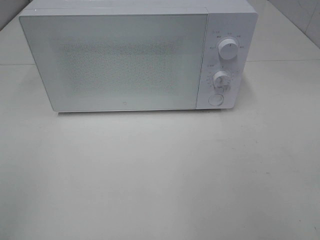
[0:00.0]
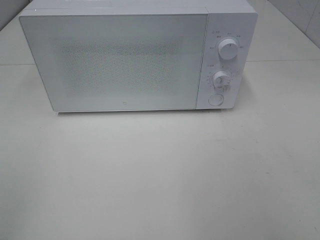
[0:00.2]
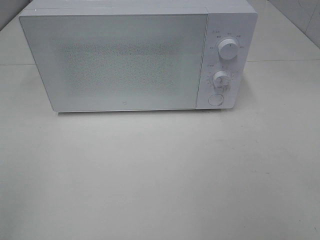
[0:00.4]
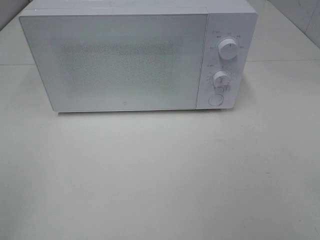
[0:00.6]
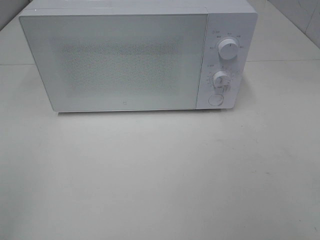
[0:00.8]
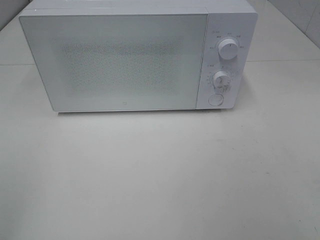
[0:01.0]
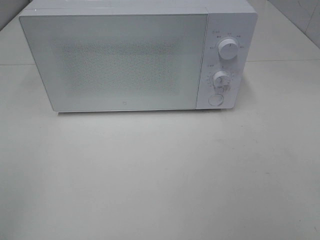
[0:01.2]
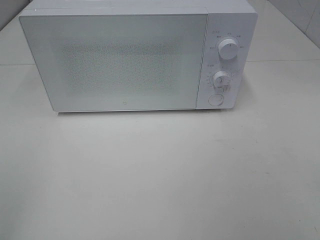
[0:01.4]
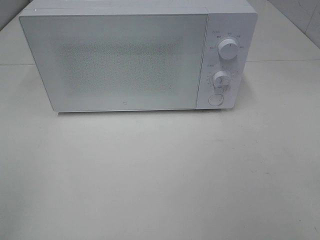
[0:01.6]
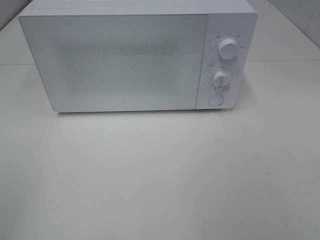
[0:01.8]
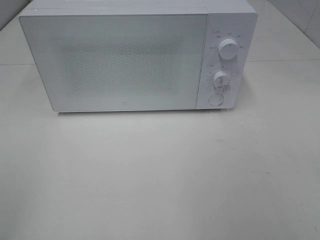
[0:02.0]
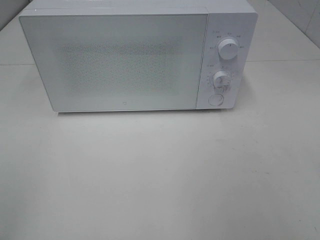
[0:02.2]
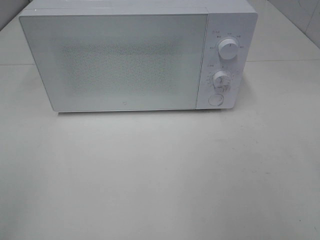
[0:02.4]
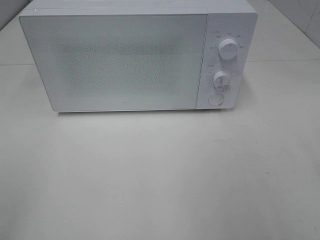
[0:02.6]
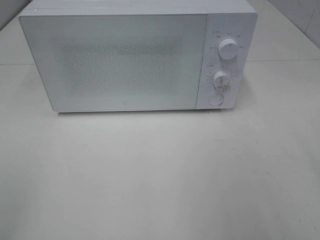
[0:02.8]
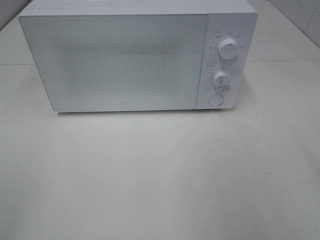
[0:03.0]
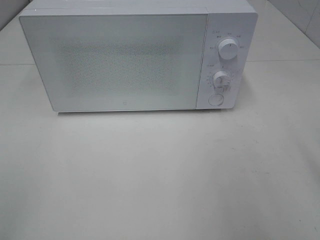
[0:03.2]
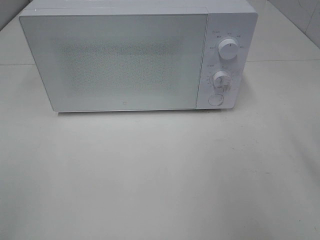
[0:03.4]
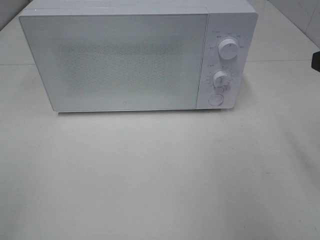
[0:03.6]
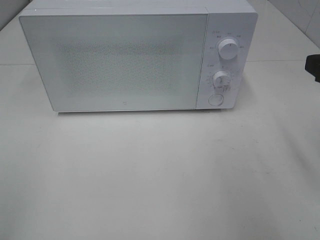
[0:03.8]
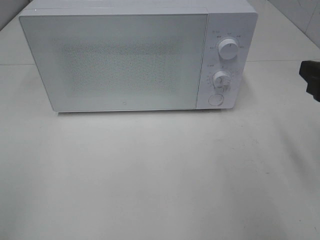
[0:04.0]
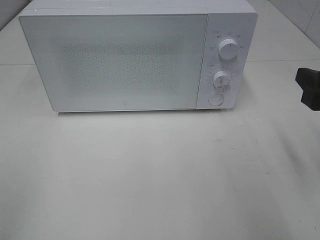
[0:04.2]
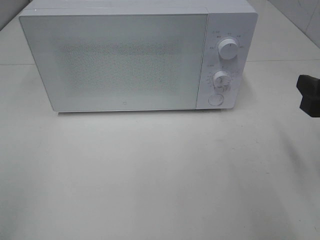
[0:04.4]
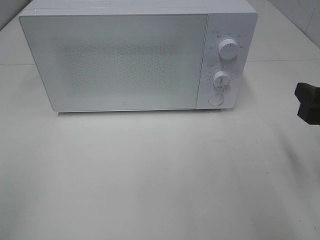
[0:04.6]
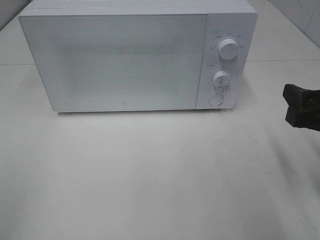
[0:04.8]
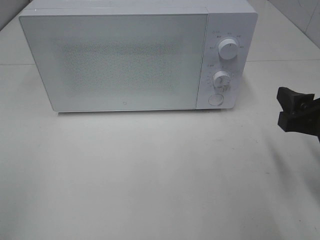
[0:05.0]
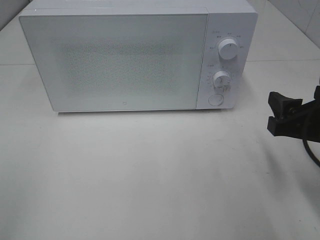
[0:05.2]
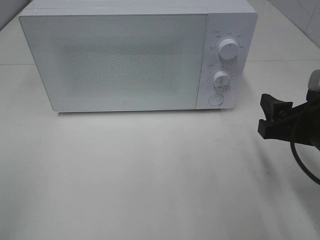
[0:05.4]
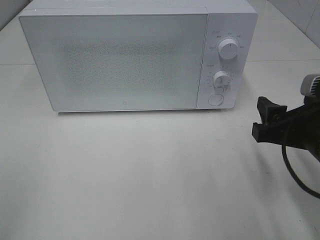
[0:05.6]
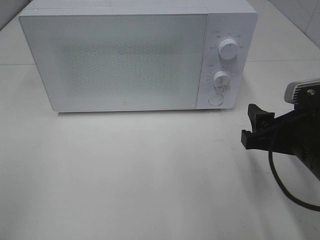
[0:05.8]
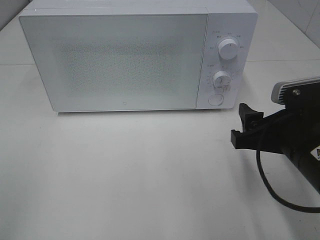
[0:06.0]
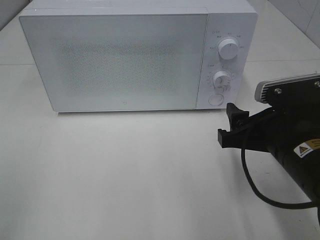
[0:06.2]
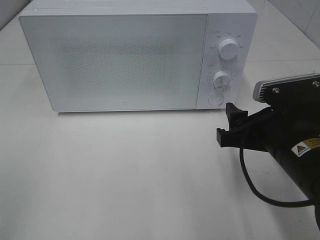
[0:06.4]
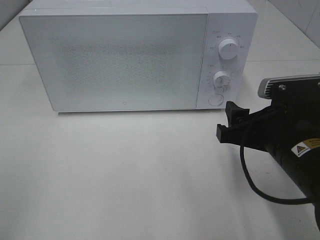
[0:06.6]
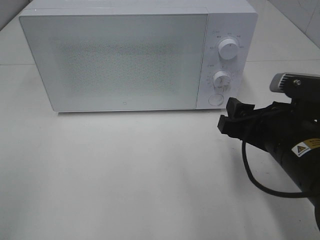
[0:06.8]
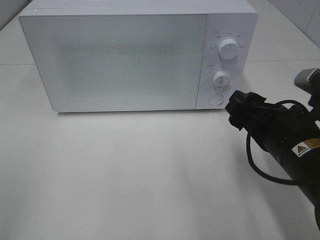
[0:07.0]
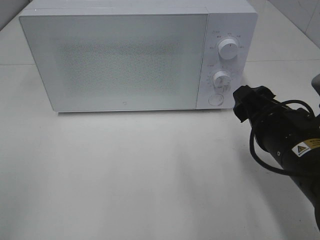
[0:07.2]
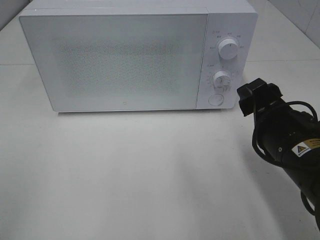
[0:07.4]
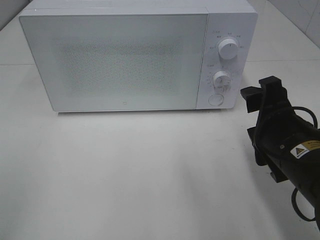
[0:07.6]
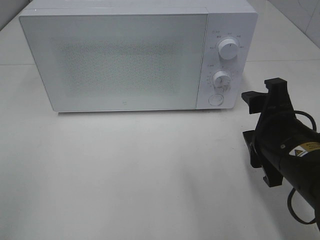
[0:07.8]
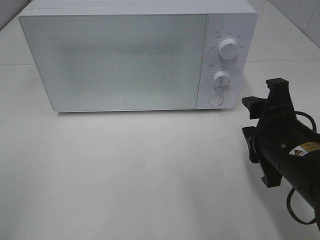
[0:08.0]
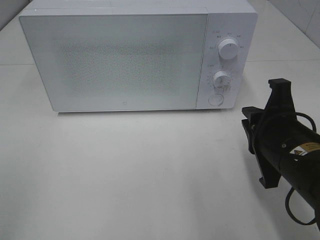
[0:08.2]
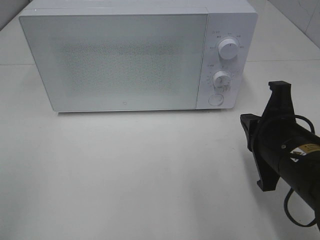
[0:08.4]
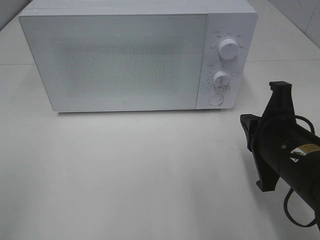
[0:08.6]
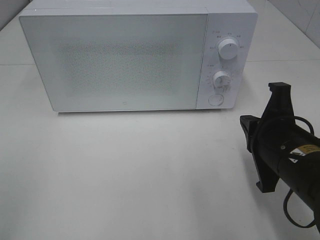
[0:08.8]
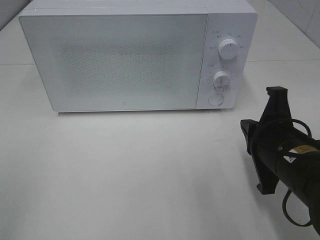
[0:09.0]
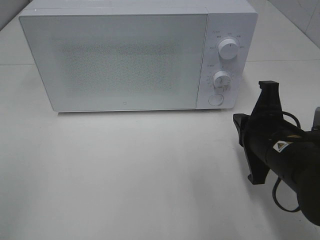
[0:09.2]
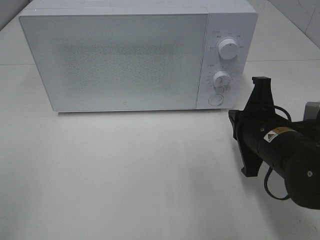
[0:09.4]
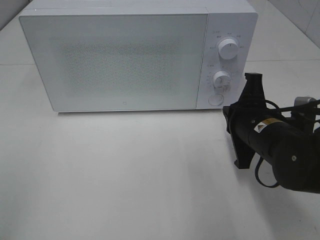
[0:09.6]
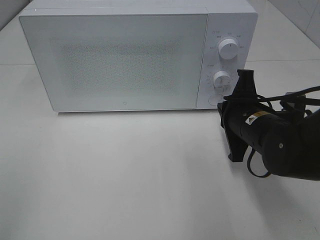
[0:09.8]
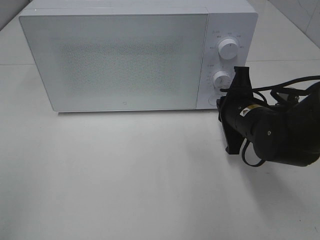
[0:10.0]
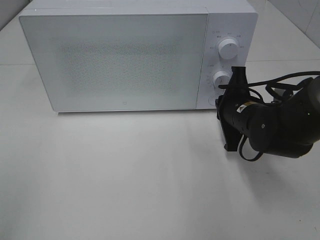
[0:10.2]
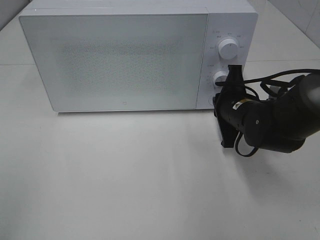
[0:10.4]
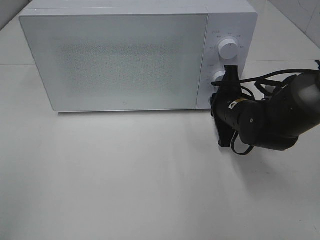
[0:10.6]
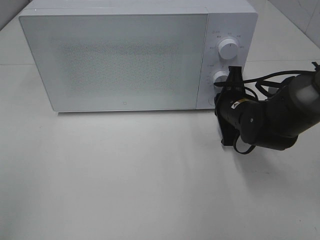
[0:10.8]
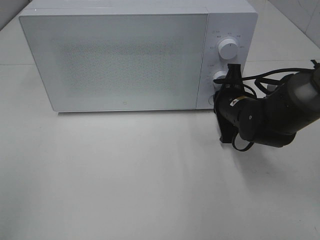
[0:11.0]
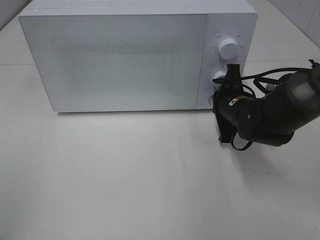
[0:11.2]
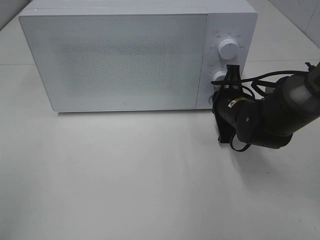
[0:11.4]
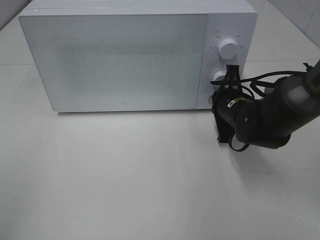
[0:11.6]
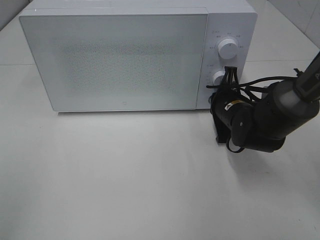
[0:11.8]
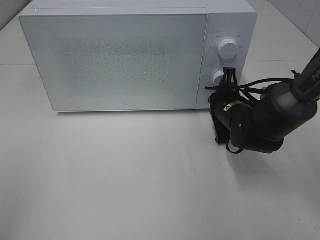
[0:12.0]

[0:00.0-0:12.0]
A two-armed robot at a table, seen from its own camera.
Task of the whole recording: Heat Sandwich.
0:03.0 to 0:04.4: The right gripper goes roughly 10 cm downward and forward.
0:04.4 to 0:06.0: The right gripper goes about 10 cm to the left.
0:07.6 to 0:09.0: The right gripper closes up.
0:09.0 to 0:10.4: The right gripper goes some 15 cm forward.
0:10.4 to 0:12.0: There are only small adjustments of the grippers.

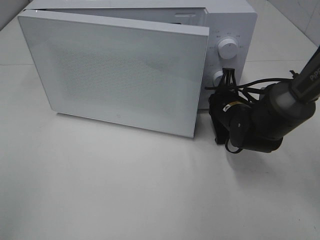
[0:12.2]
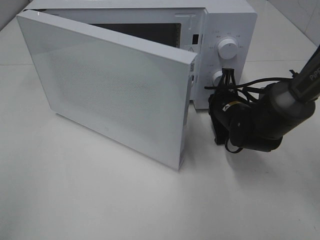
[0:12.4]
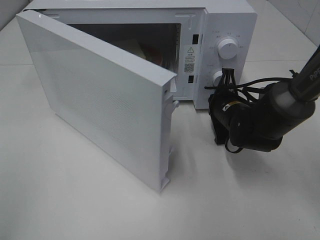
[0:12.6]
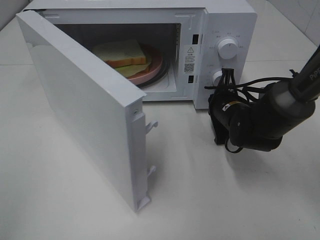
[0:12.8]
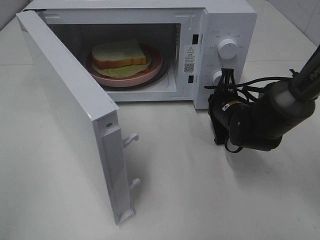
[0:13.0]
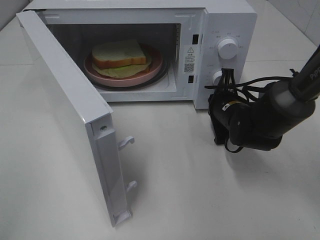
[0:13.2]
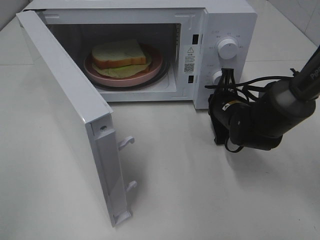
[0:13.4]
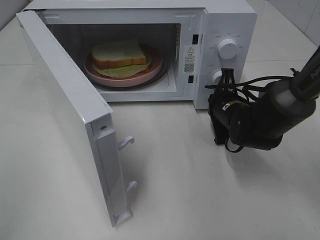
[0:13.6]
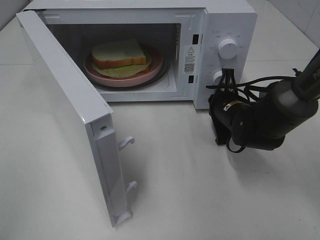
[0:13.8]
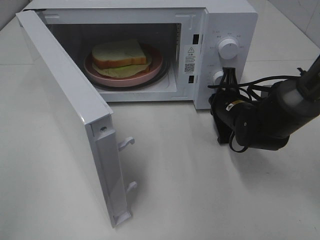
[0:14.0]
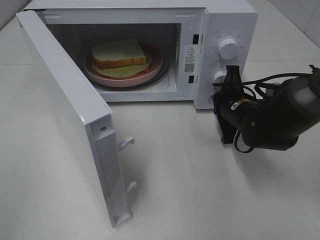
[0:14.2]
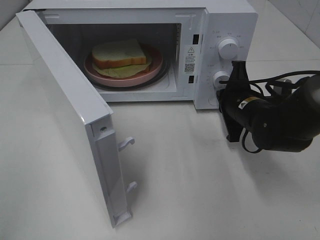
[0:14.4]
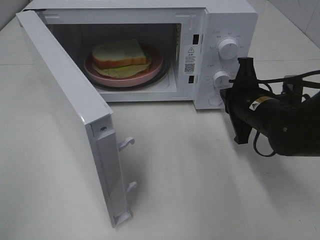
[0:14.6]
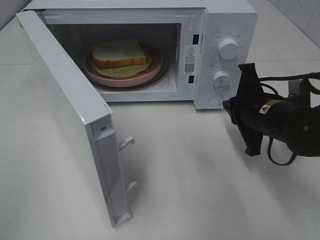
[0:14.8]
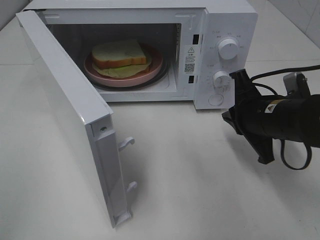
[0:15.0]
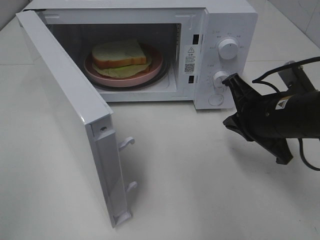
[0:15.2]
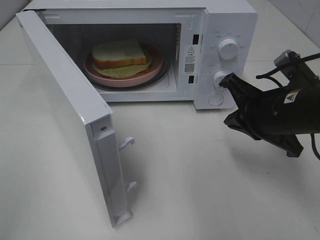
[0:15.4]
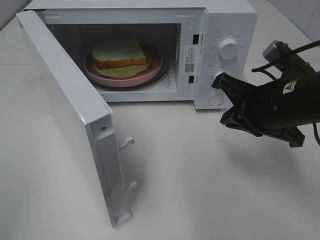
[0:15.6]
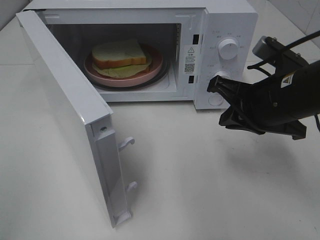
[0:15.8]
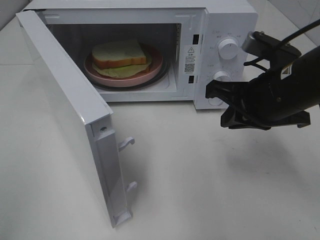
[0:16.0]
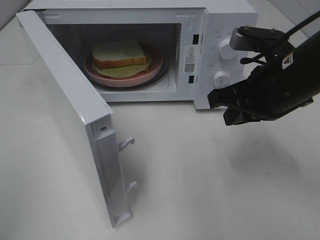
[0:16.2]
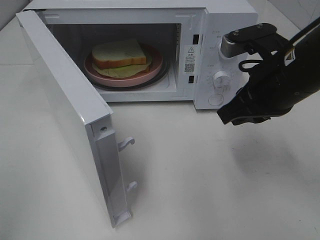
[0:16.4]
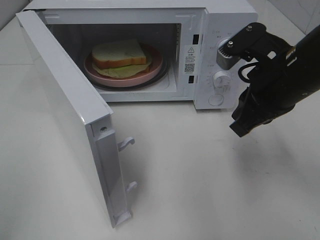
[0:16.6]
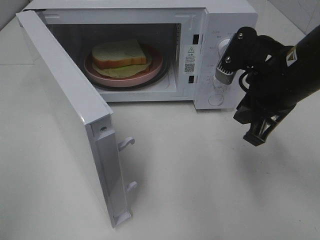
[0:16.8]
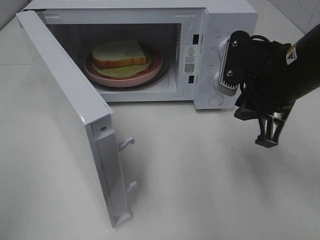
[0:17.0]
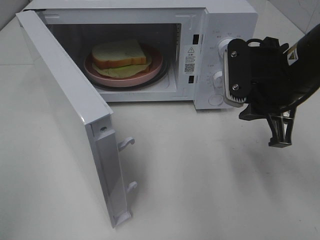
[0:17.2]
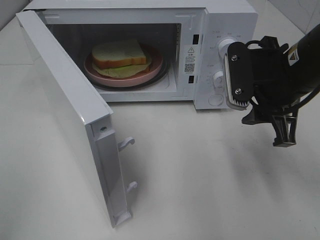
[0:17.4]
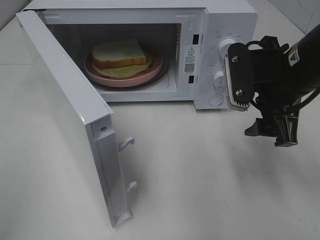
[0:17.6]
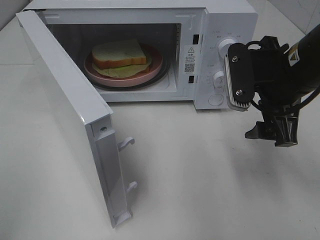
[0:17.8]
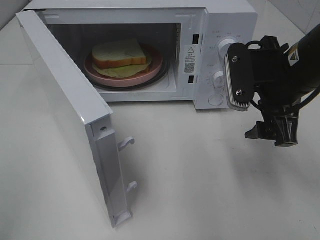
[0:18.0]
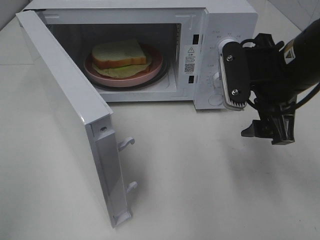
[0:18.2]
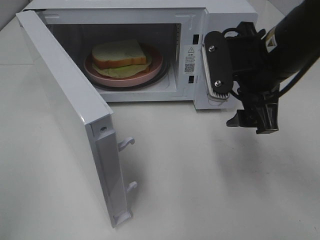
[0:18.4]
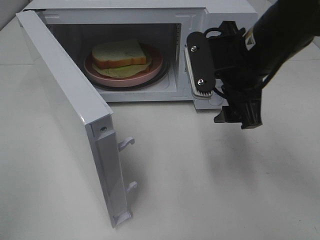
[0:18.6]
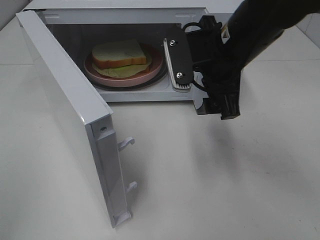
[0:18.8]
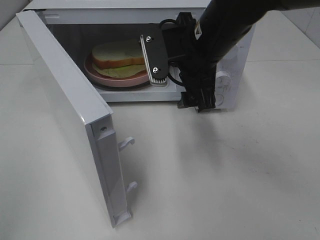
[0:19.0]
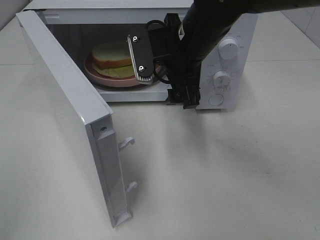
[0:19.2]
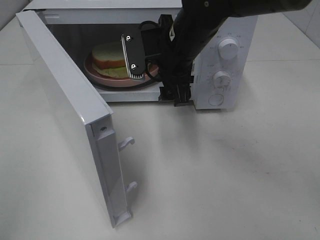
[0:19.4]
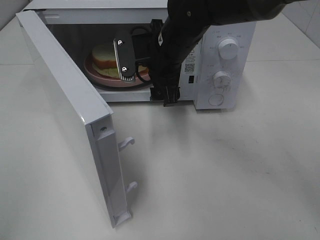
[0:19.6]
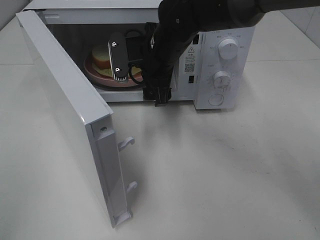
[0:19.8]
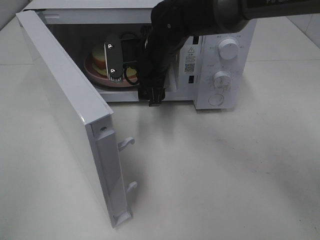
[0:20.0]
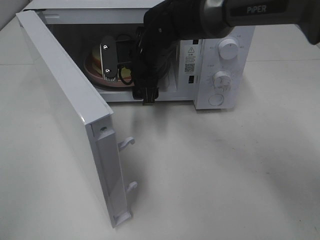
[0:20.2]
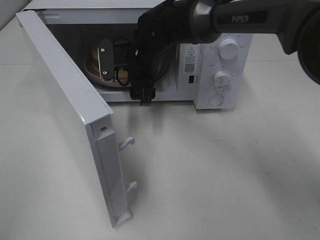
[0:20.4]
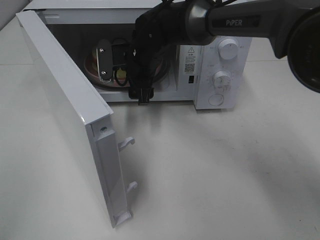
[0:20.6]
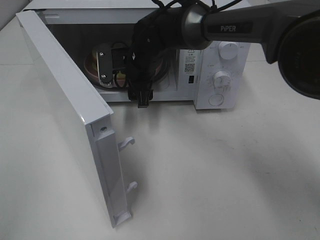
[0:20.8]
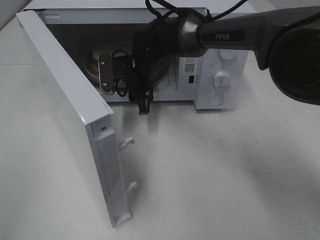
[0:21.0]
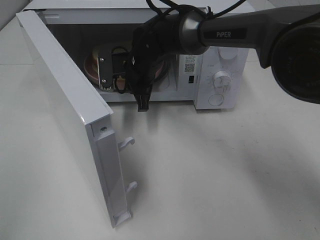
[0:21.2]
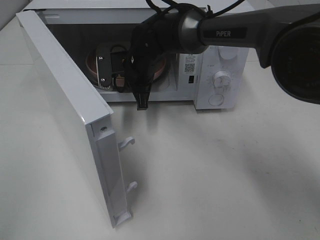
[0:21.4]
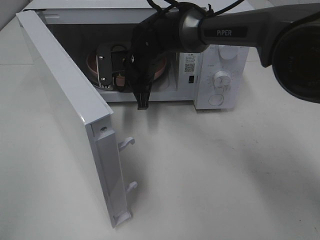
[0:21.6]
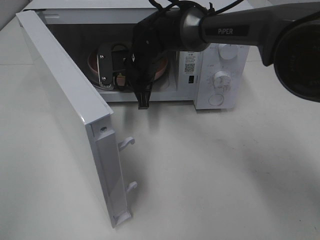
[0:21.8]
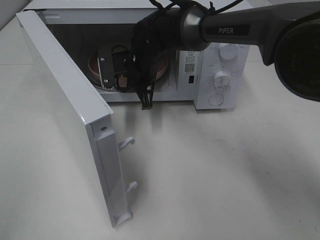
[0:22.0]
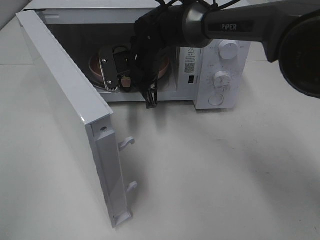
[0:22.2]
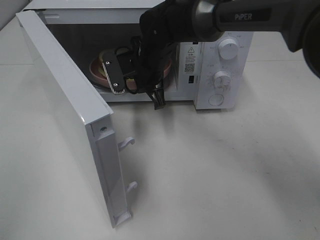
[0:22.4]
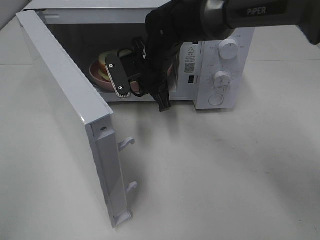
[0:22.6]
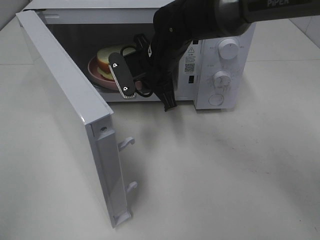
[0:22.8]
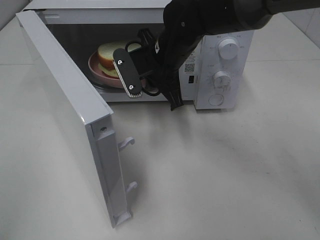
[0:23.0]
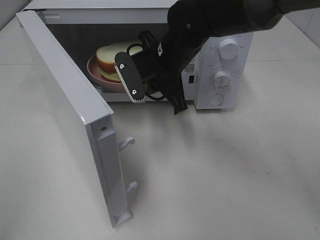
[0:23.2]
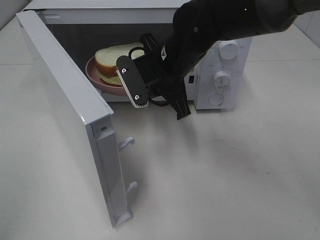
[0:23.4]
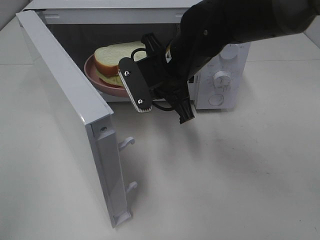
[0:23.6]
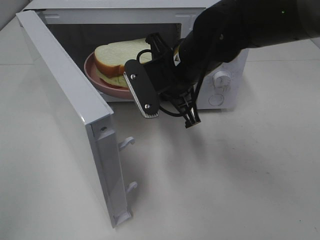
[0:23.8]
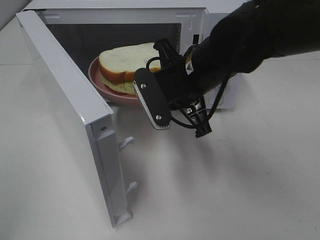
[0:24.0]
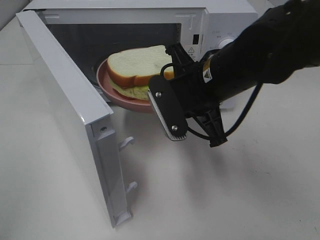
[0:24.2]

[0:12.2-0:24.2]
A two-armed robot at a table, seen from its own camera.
Task of the whole recording: Heat Sandwich.
Step, 0:12.2 to 0:14.6: Right hand: press the switch.
Step, 0:14.8 to 0:21.6: Right hand: grab the plate with the sandwich.
0:13.8 to 0:15.2: The right gripper heads backward and upward, covering approximately 15 cm.
0:15.2 to 0:16.6: The right gripper moves upward, roughly 5 cm.
0:16.6 to 0:18.2: The right gripper opens.
0:18.2 to 0:19.8: The right gripper moves to the left and forward, approximately 20 cm.
0:19.8 to 0:21.2: The right gripper goes about 5 cm downward, and closes up.
0:21.2 to 0:22.6: There are only small adjustments of the grippers.
0:22.6 to 0:24.2: The right gripper goes approximately 15 cm backward and to the right.
